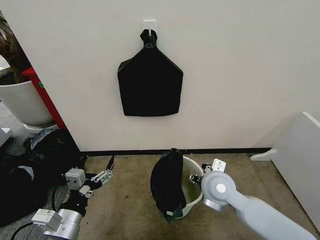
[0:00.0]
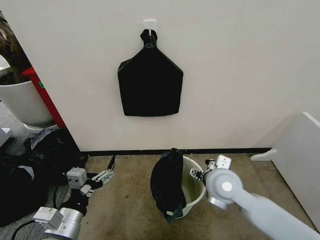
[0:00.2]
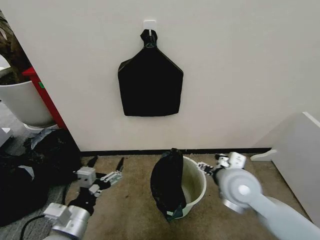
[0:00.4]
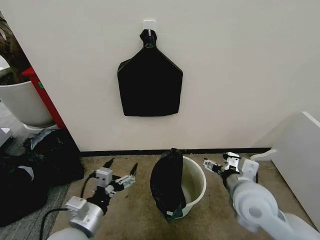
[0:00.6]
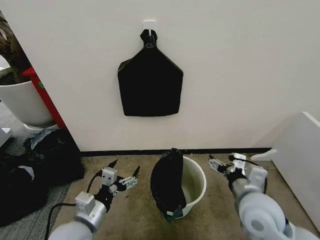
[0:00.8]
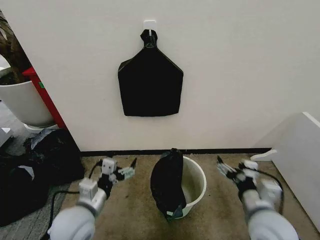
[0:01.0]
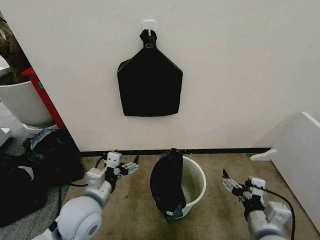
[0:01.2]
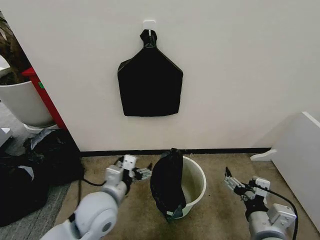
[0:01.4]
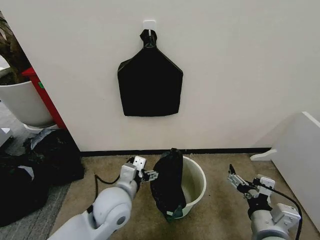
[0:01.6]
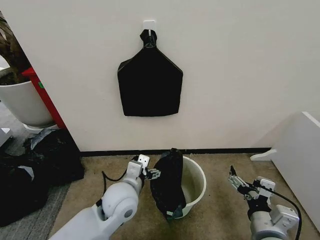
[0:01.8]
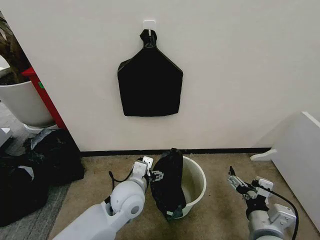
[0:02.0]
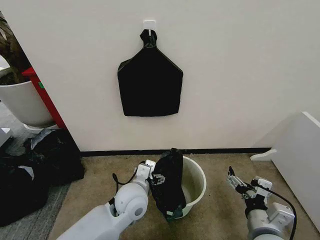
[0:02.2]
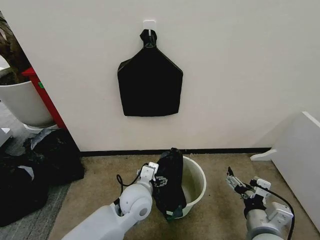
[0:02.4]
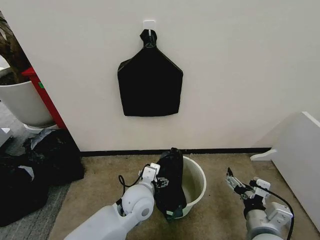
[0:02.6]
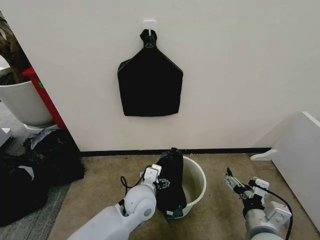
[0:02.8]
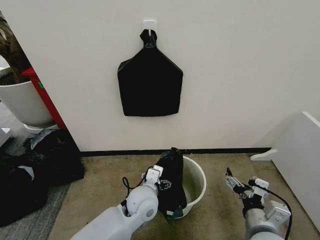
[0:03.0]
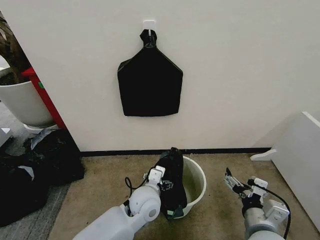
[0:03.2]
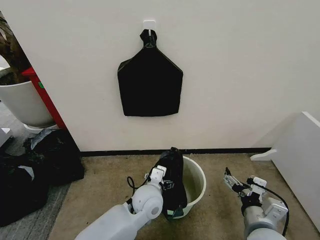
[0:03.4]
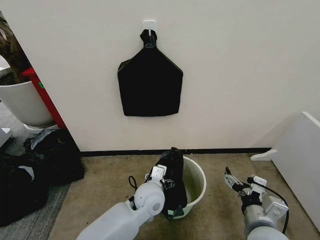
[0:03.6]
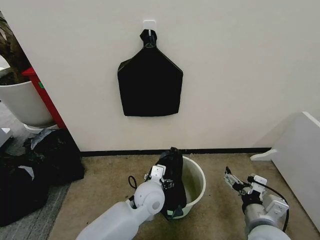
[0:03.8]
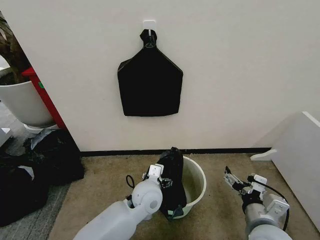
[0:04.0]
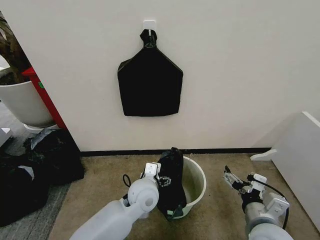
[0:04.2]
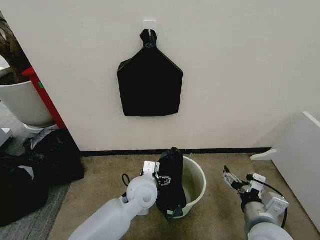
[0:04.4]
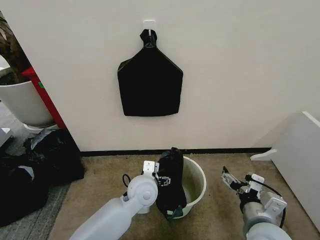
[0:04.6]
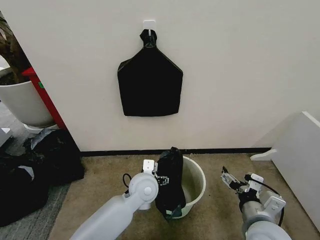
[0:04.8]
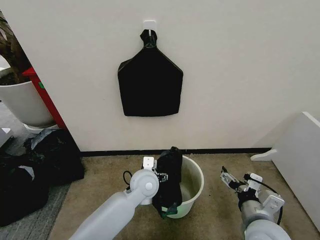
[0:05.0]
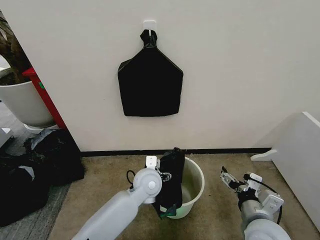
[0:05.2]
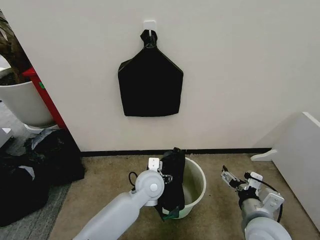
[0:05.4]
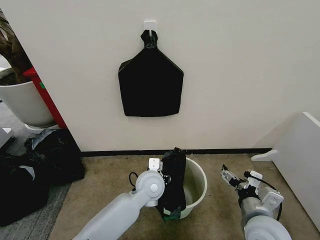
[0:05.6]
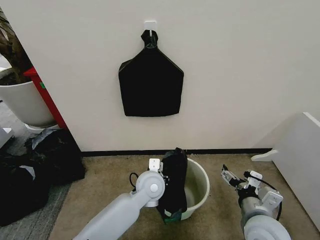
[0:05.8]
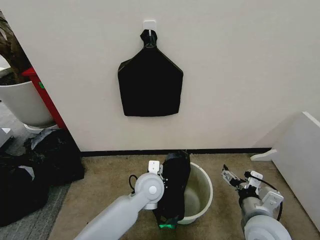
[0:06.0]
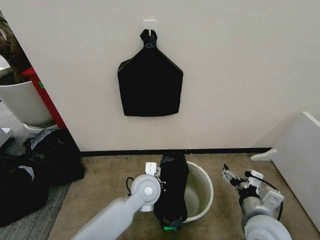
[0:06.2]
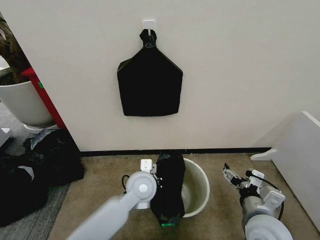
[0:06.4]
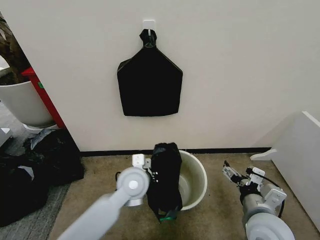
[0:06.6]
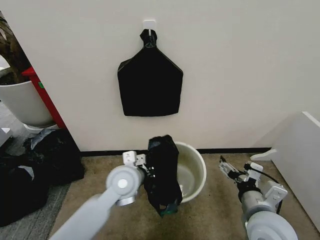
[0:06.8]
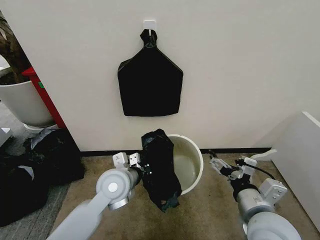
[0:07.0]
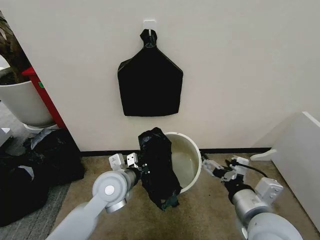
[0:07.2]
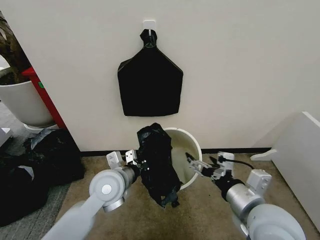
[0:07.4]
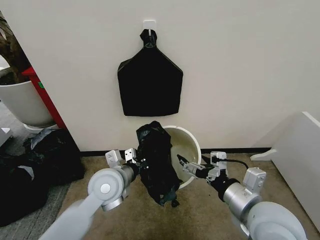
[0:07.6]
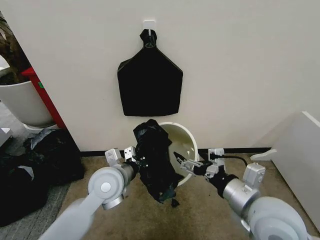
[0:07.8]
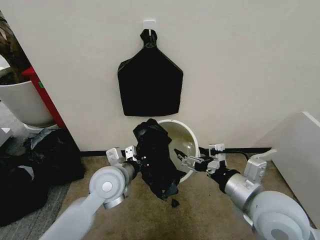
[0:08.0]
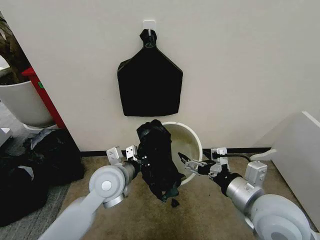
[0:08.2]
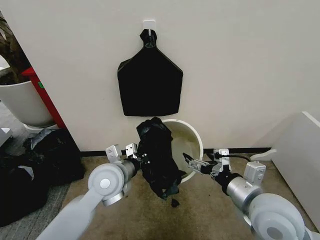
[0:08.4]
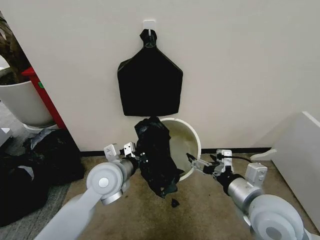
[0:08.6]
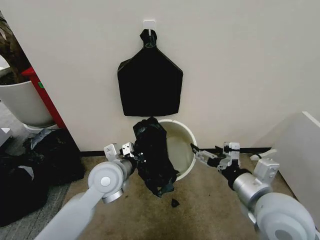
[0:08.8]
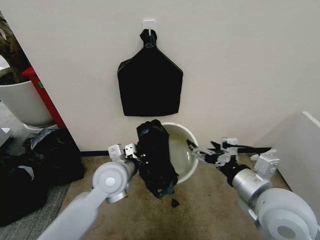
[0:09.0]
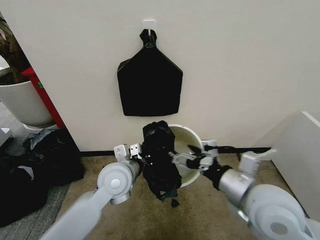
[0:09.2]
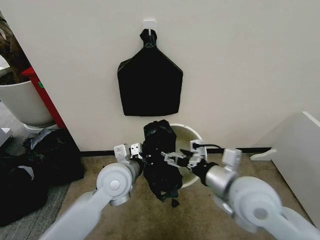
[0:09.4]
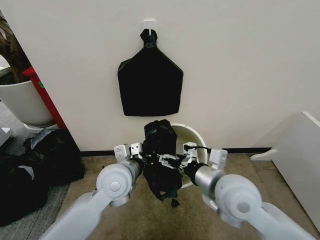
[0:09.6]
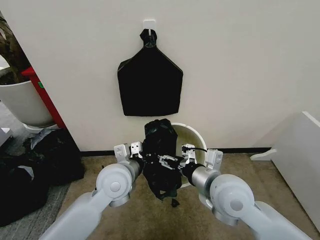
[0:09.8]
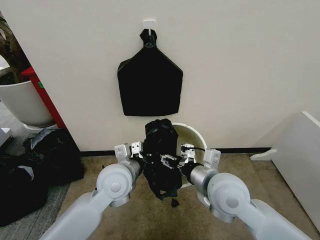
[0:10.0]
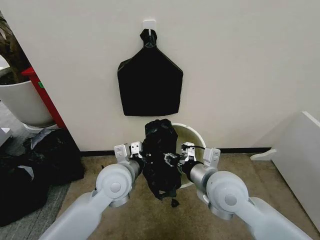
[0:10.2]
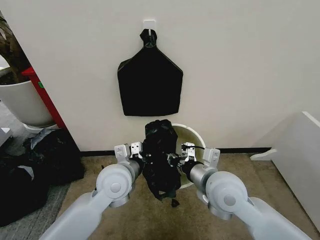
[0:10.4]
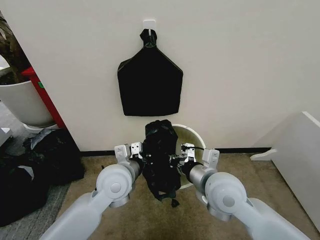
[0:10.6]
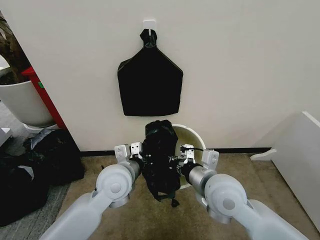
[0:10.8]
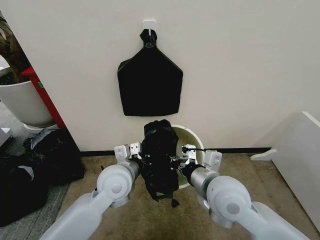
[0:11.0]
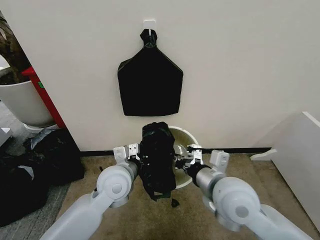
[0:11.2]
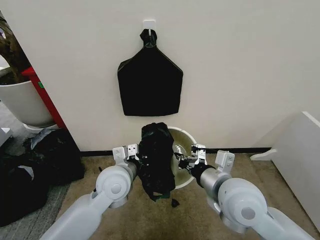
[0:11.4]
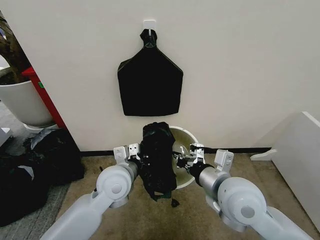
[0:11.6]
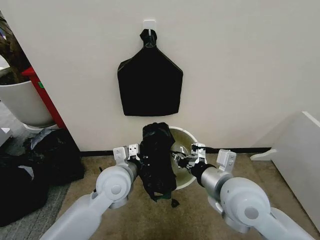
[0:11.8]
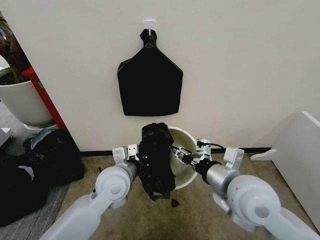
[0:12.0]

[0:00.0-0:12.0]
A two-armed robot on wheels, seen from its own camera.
Task of the whole recording: Place the garbage bag over the trash bin.
0:00.0 to 0:01.6: The right gripper moves backward and to the right, roughly 20 cm. Meanwhile the left gripper shifts approximately 15 cm to the right and forward.
0:01.6 to 0:03.0: The left gripper heads to the right and downward, covering about 10 cm.
0:03.0 to 0:04.4: The grippers move only a little.
0:04.4 to 0:06.0: The left gripper closes its fingers.
0:06.0 to 0:07.6: The left gripper heads to the left and upward, covering some 15 cm; the right gripper shifts roughly 10 cm upward.
0:07.6 to 0:09.0: There are only small adjustments of the grippers.
0:09.0 to 0:10.4: The right gripper travels to the left and forward by roughly 10 cm, and closes its fingers.
0:10.4 to 0:12.0: The right gripper shifts by roughly 5 cm.

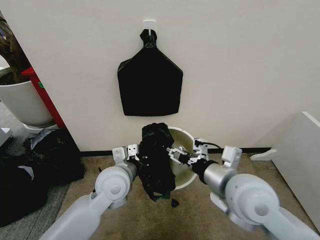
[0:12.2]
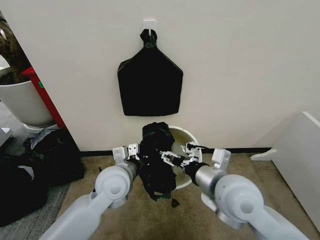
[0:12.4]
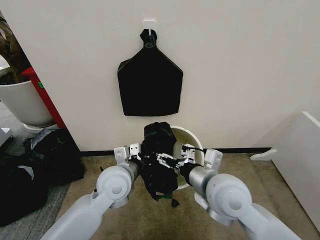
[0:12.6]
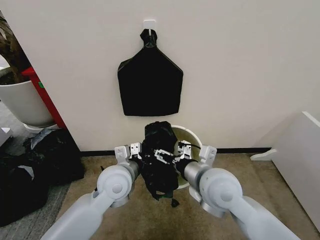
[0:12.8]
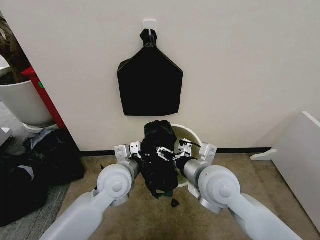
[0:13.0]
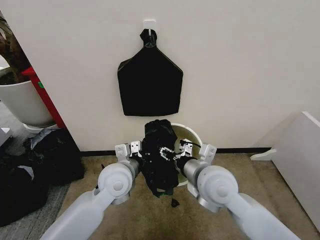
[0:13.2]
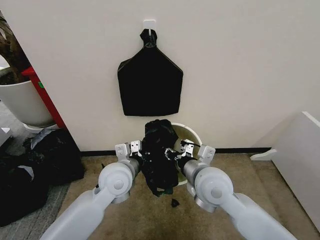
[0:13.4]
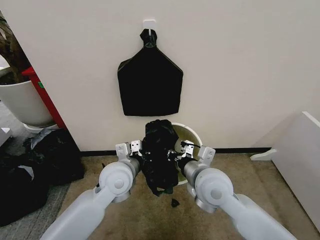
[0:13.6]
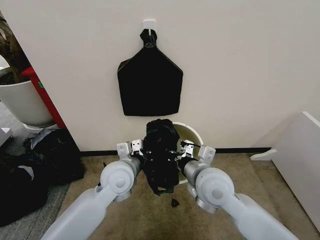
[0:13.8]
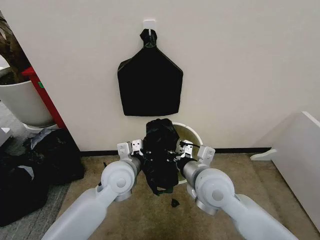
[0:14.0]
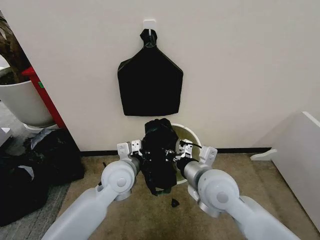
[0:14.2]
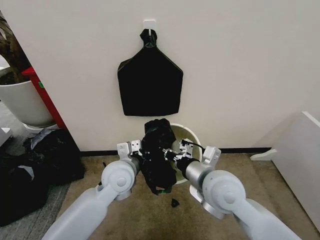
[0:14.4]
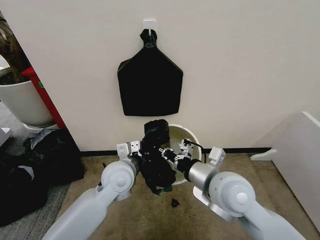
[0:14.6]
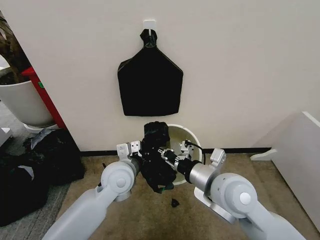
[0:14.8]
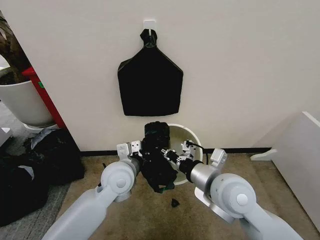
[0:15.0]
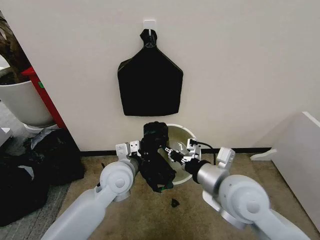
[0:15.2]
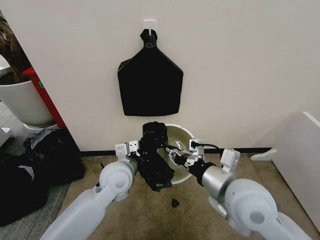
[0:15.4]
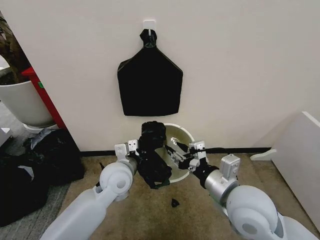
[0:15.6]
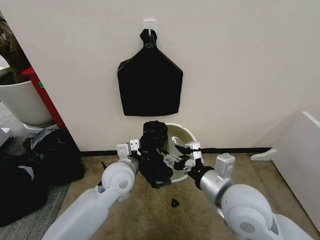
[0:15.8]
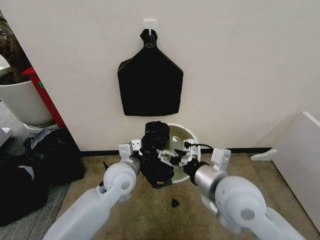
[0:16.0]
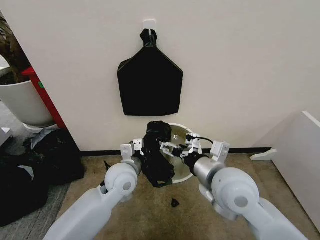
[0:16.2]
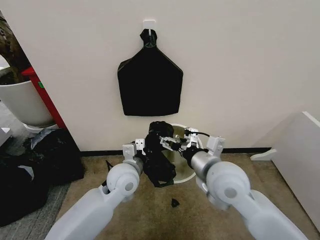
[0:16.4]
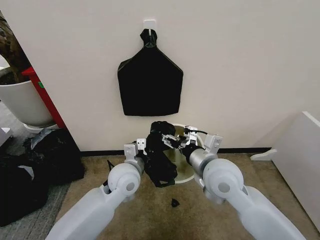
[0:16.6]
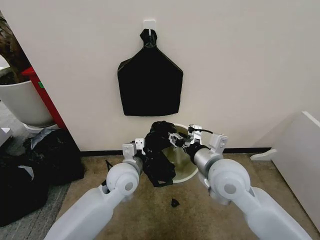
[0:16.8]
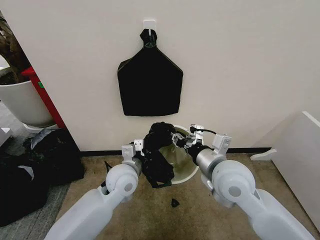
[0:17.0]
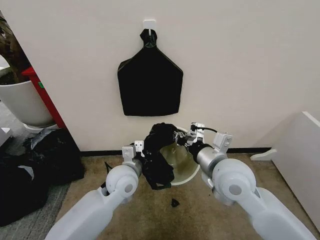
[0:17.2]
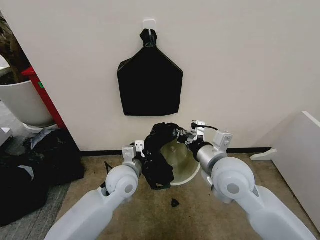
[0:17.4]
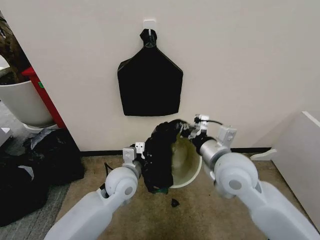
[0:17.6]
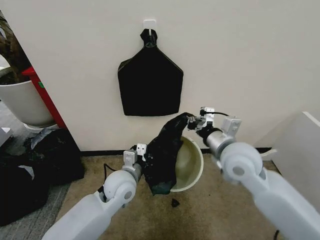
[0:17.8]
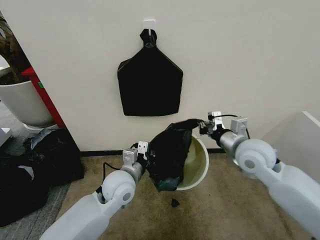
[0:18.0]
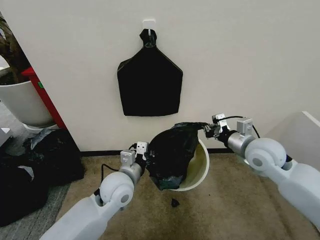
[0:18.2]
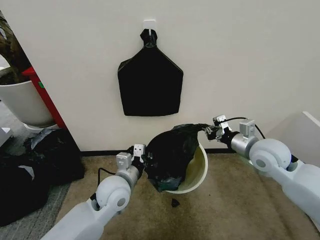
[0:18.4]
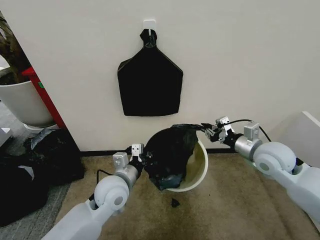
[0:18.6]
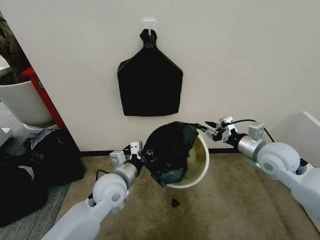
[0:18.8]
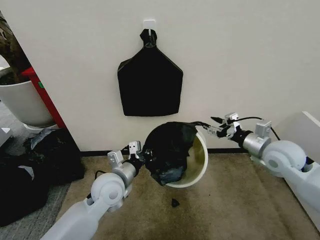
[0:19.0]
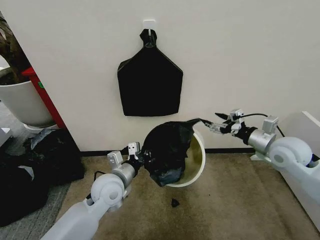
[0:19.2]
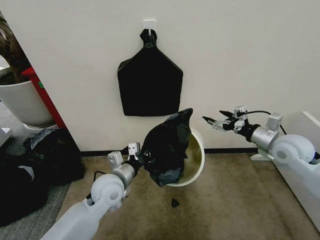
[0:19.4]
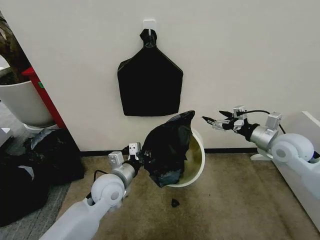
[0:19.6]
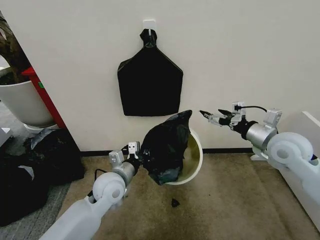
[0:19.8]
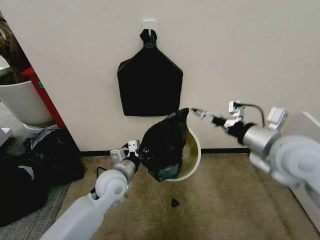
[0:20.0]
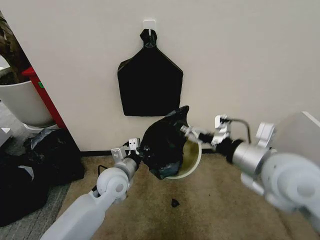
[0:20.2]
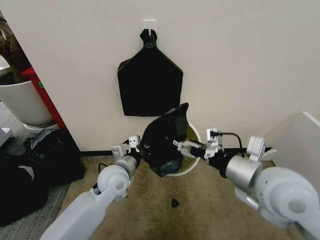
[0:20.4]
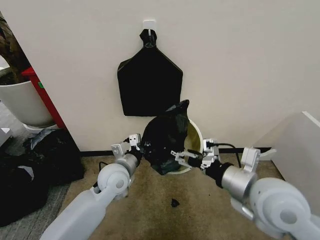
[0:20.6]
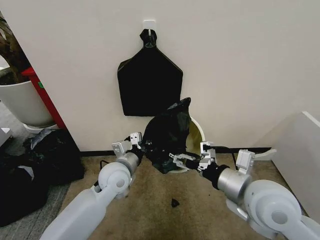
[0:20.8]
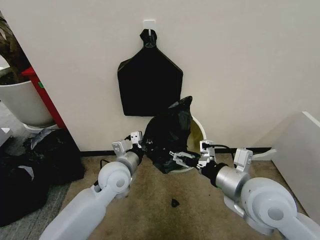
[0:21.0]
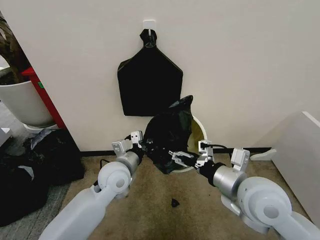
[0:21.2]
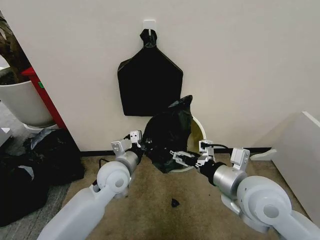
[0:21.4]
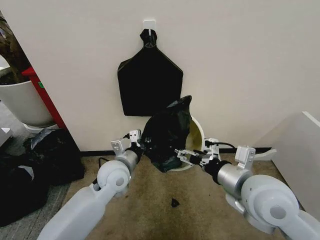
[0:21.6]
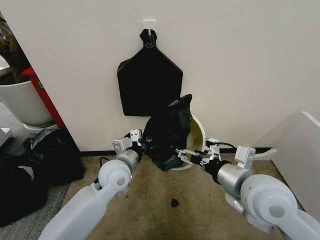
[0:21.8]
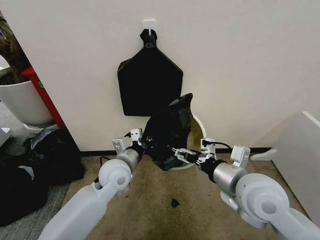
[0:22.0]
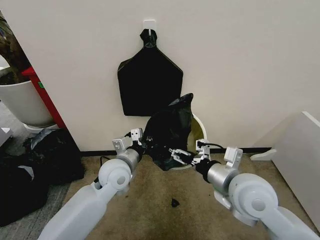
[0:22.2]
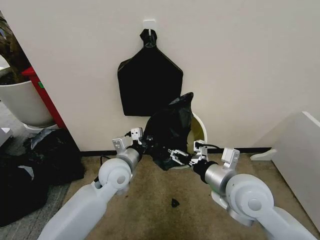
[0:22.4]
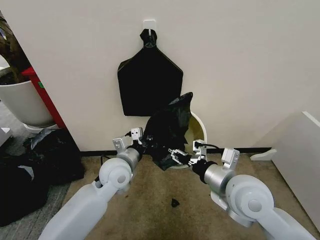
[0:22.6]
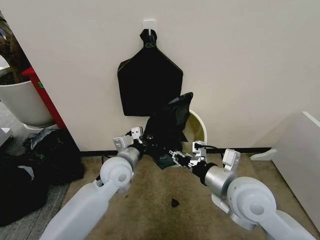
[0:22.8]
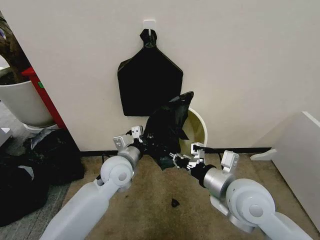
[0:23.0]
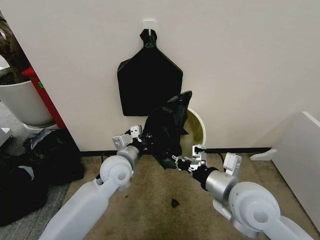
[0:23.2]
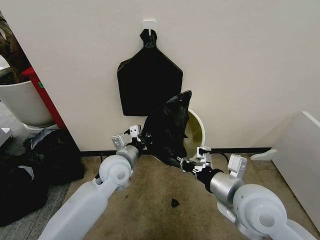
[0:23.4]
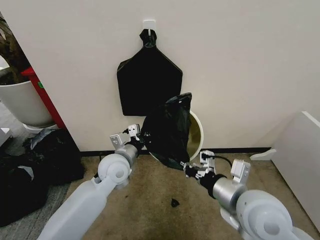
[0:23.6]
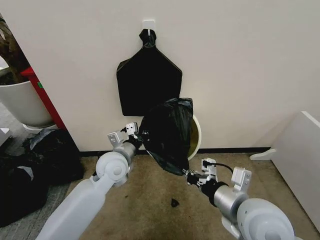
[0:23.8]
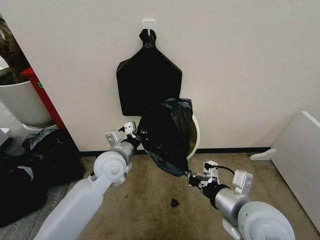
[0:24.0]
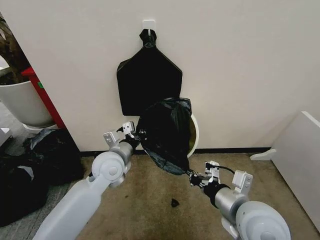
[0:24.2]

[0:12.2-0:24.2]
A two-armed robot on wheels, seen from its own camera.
Task of the whole recording: Place the garbage bag over the trash bin.
0:12.2 to 0:13.8: The right gripper moves downward and to the left, approximately 5 cm, and closes its fingers.
0:13.8 to 0:15.2: The right gripper changes place by approximately 5 cm.
0:15.2 to 0:16.6: The right gripper goes roughly 5 cm forward, and opens.
0:16.6 to 0:18.2: The right gripper heads to the right and forward, covering about 15 cm, and closes up.
0:18.2 to 0:19.8: The right gripper opens.
0:19.8 to 0:21.2: The right gripper heads to the left and backward, covering about 20 cm.
0:21.2 to 0:22.6: The right gripper closes up.
0:22.6 to 0:24.2: The right gripper goes some 5 cm backward, and closes its fingers.
